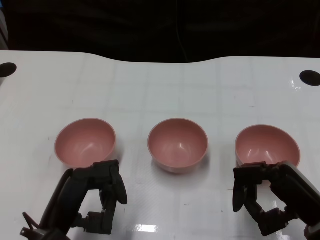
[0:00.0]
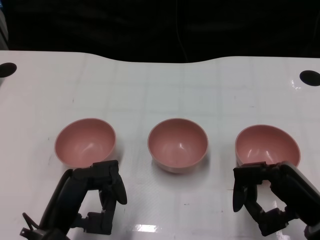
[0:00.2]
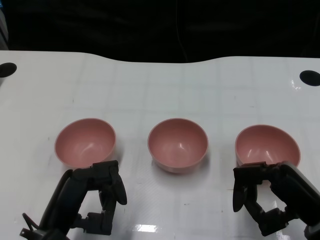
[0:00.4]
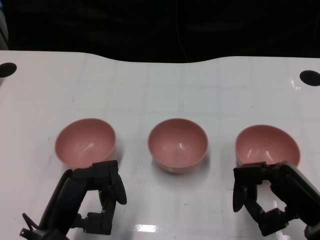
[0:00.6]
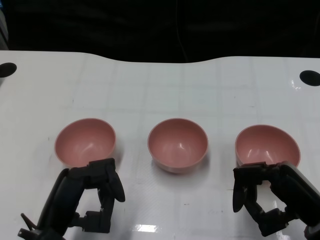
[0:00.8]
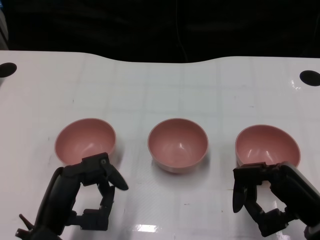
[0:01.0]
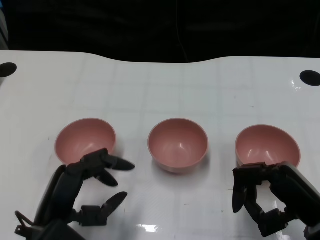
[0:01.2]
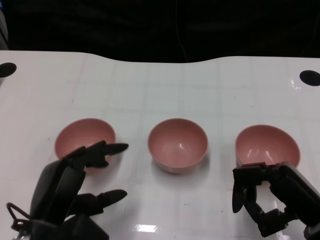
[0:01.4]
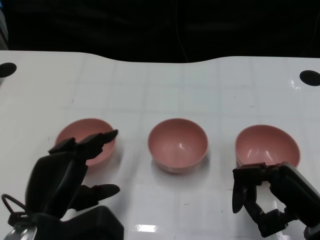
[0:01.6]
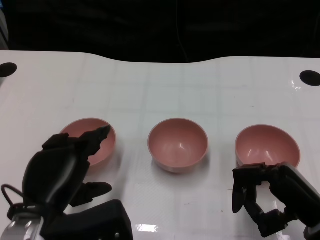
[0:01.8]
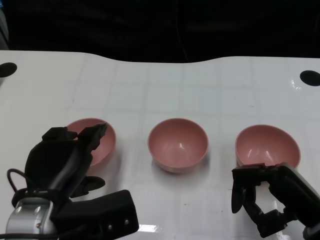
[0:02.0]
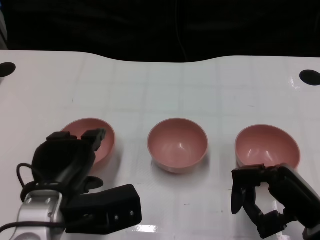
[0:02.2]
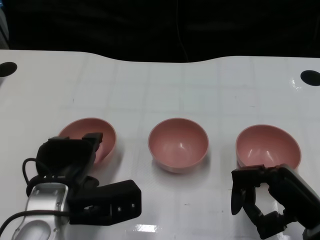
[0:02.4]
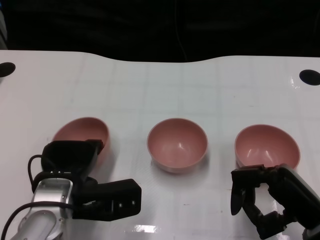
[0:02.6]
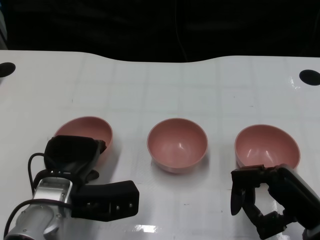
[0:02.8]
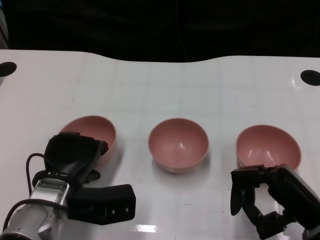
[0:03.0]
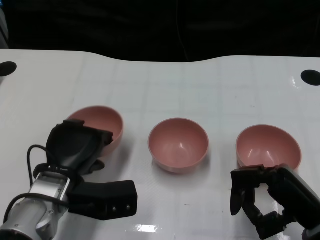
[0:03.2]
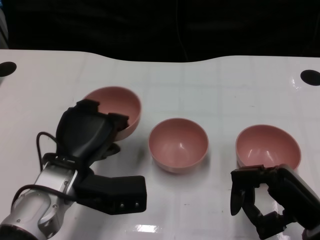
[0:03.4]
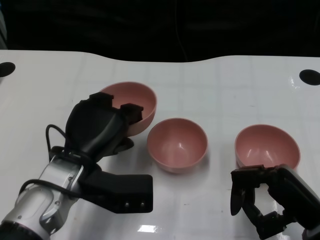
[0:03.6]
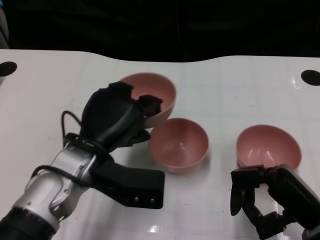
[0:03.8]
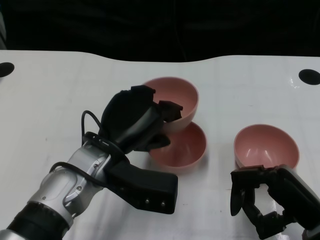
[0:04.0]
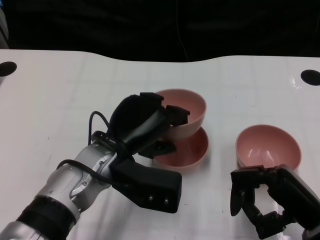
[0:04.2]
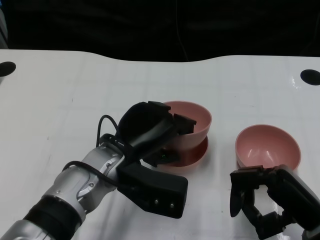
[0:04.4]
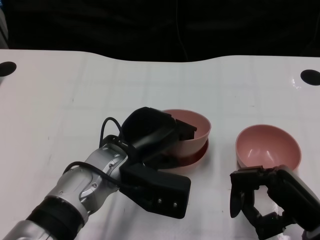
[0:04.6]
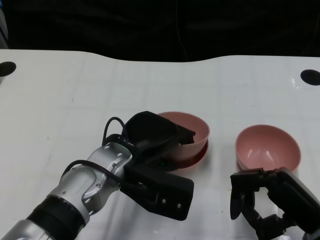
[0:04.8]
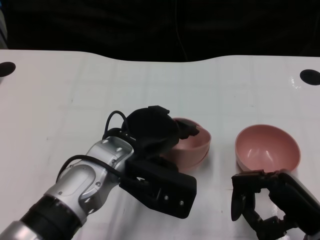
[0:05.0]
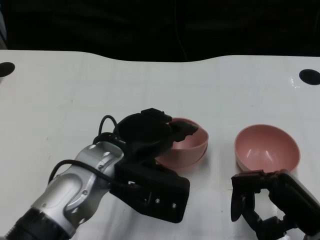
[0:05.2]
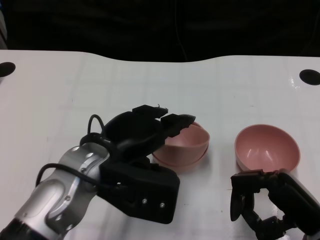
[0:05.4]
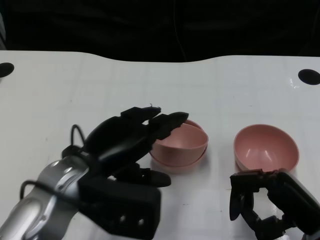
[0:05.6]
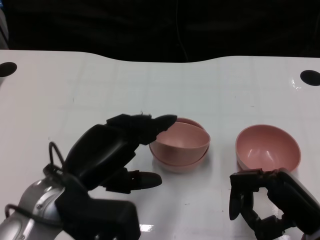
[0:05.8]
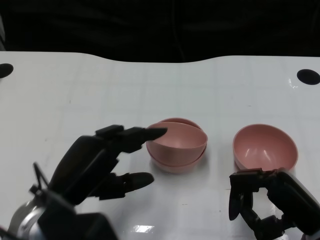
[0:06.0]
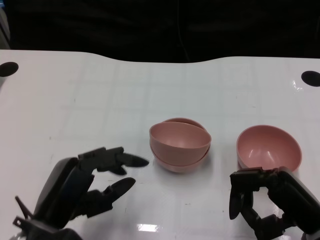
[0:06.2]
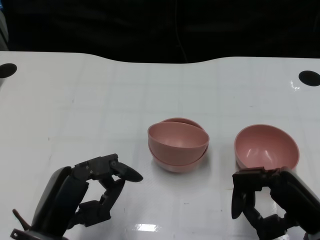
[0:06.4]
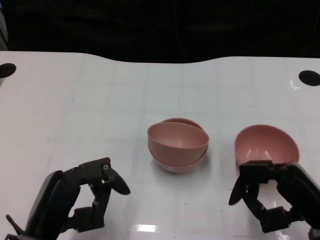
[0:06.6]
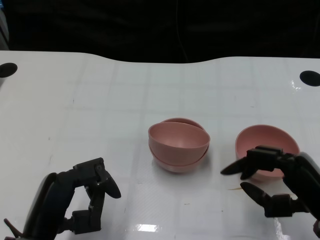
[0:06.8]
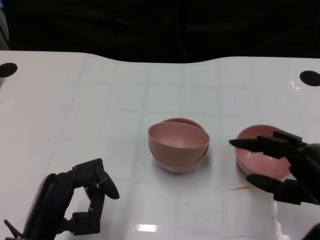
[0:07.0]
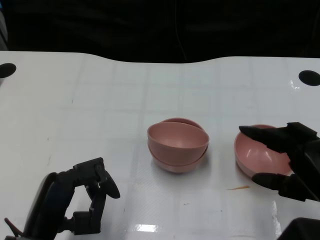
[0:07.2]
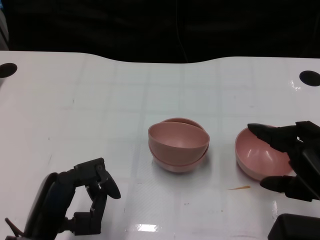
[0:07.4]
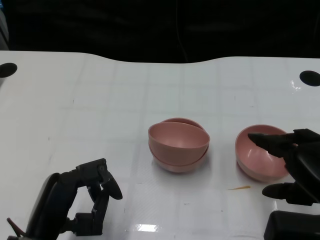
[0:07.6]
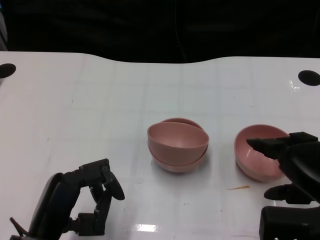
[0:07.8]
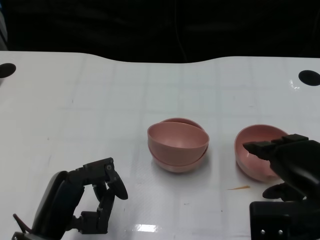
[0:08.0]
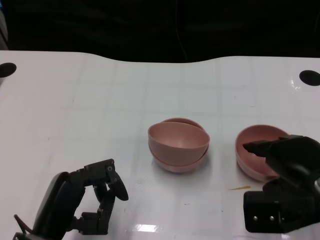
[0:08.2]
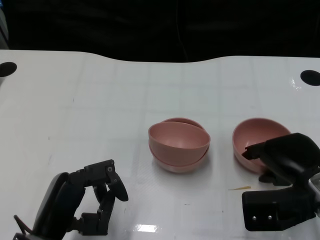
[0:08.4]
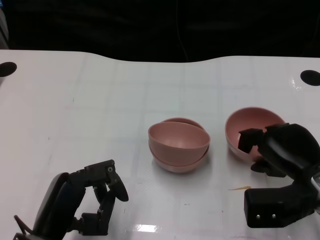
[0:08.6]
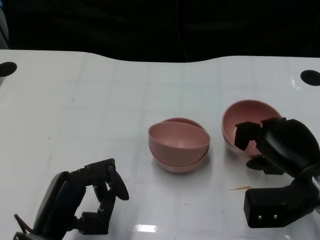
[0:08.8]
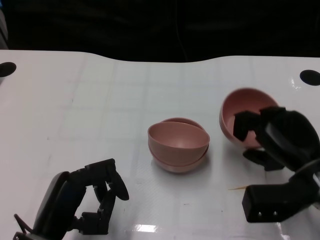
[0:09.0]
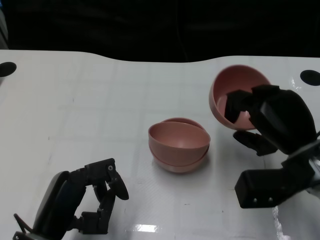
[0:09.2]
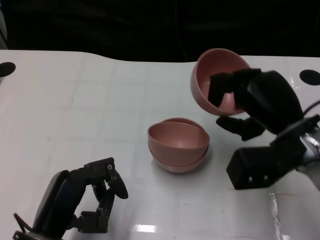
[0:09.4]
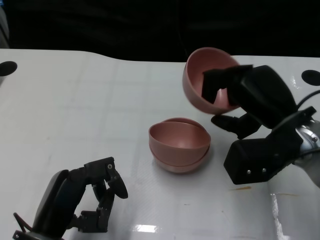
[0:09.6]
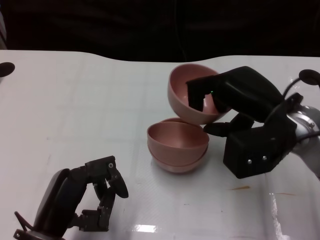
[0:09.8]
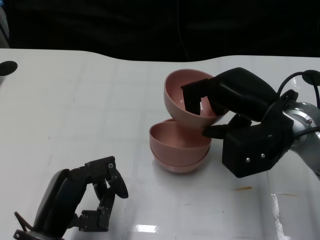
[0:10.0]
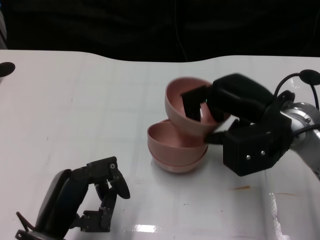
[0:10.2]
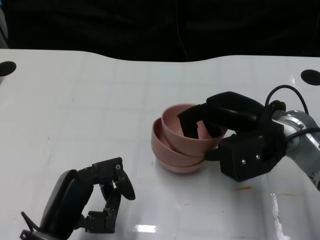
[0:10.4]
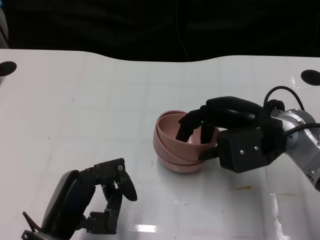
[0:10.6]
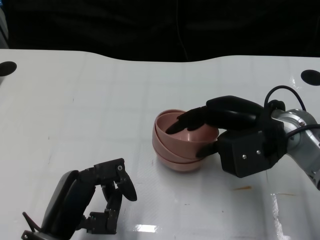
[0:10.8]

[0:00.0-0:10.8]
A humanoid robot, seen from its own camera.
Task of the whole recording: Pick up the bowl on one side of the table and place it on top of the middle bowl, then pick up the bowl on the other side of the table and place it on top of the middle bowls.
Step, 0:01.0 to 0:03.0: Grasp the bowl on the left with the left gripper.
Step, 0:03.2 to 0:05.6: Place the bowl on the left onto the bowl in the middle with left gripper.
Step, 0:05.8 to 0:08.6: Grasp the bowl on the right with the right gripper.
0:01.6 to 0:03.0: The left hand shifts some 10 cm forward.
0:03.0 to 0:04.6: The left hand travels to the right and upward by roughly 10 cm.
0:04.6 to 0:06.2: The left hand travels to the left and backward by about 15 cm.
0:06.2 to 0:07.8: The right hand travels upward by about 5 cm.
0:07.8 to 0:09.2: The right hand heads forward, covering some 10 cm.
0:09.2 to 0:10.8: The right hand moves about 5 cm.

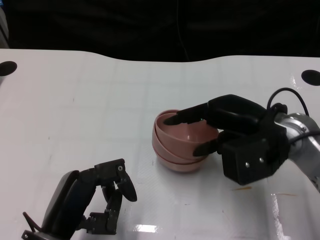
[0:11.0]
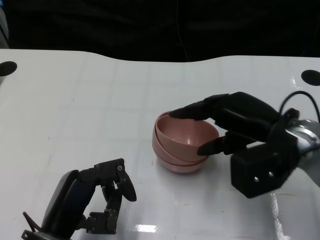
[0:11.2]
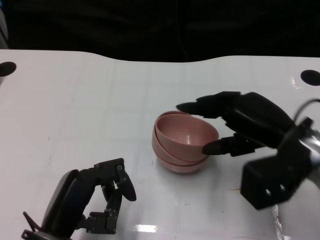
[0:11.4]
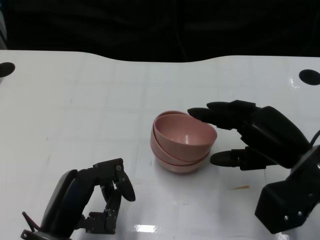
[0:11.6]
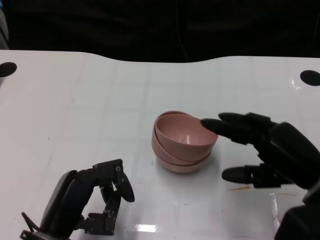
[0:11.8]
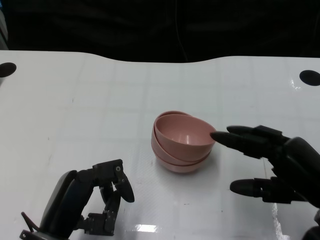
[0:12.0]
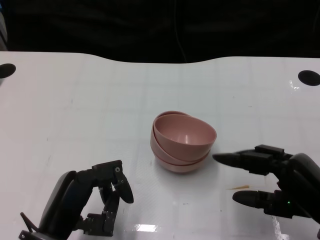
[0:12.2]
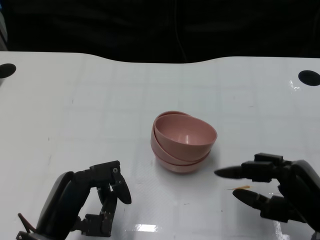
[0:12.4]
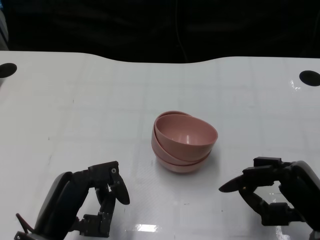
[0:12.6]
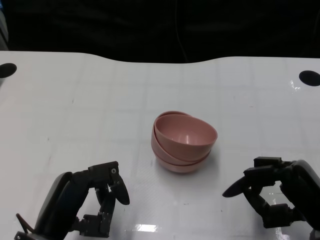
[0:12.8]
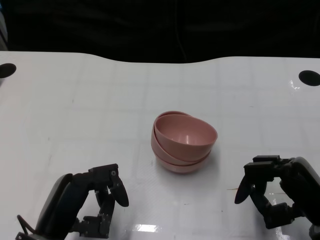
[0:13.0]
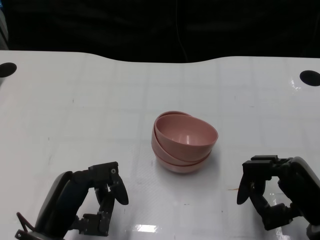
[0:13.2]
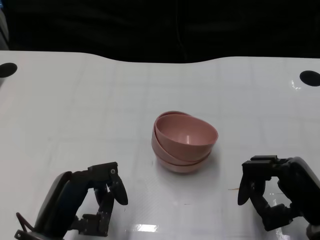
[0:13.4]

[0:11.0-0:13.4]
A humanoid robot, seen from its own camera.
Task of the whole recording: Pick up the bowl on one side of the table and place it on top of the middle bowl, then pick up the bowl on the other side of the table and place it on top of the middle bowls.
0:11.0 to 0:12.2: The right hand is displaced backward and to the right by approximately 15 cm.
0:12.2 to 0:13.4: The hands stay close to where they were, moving slightly.

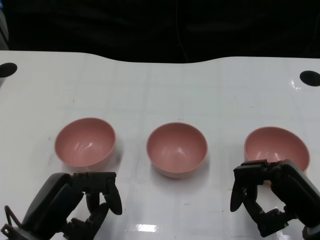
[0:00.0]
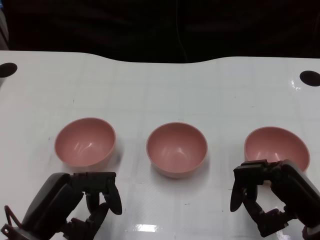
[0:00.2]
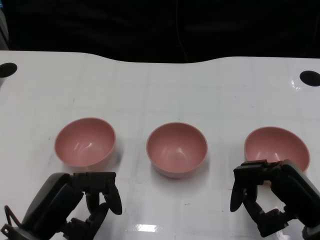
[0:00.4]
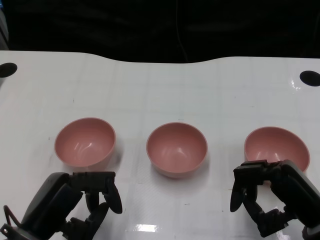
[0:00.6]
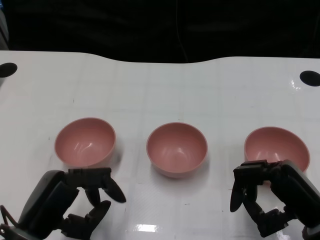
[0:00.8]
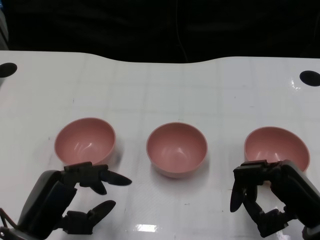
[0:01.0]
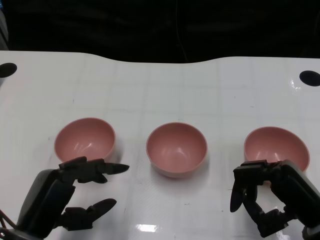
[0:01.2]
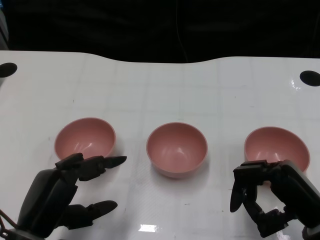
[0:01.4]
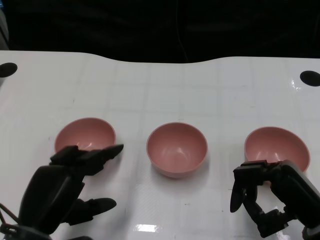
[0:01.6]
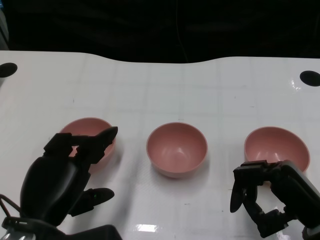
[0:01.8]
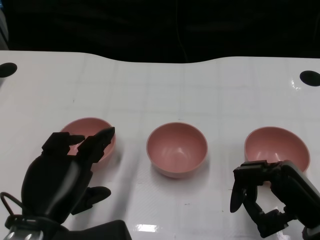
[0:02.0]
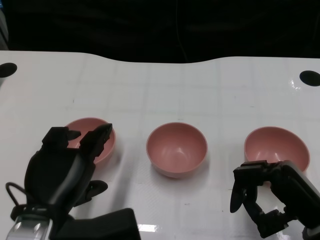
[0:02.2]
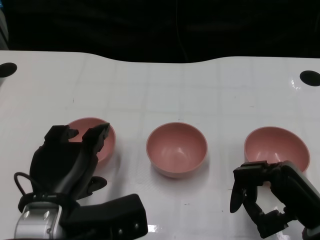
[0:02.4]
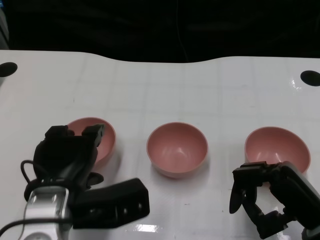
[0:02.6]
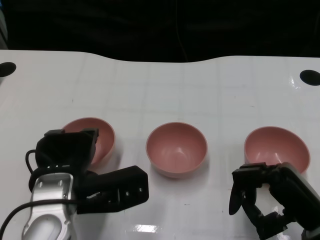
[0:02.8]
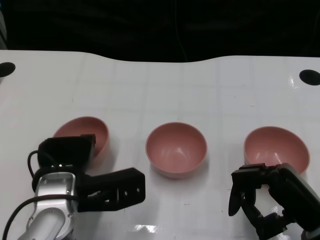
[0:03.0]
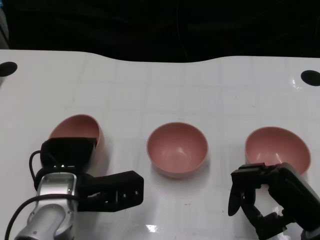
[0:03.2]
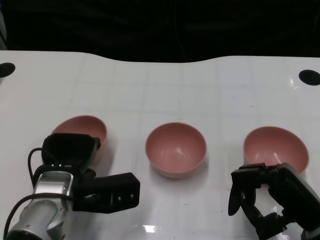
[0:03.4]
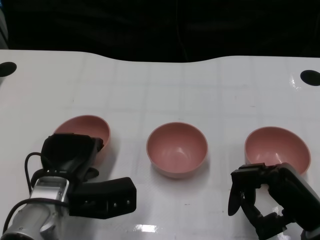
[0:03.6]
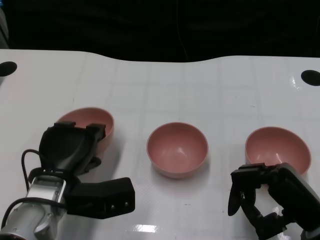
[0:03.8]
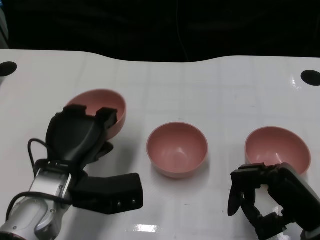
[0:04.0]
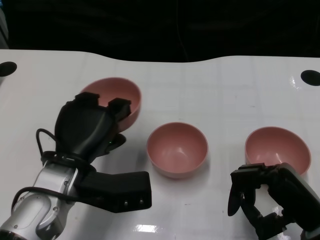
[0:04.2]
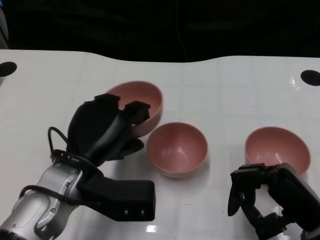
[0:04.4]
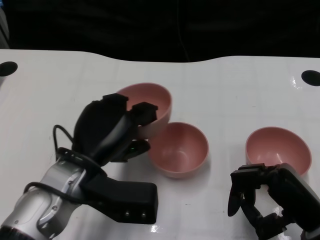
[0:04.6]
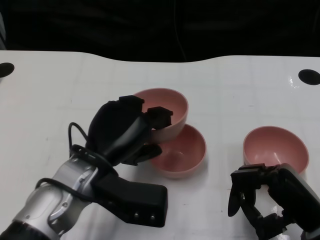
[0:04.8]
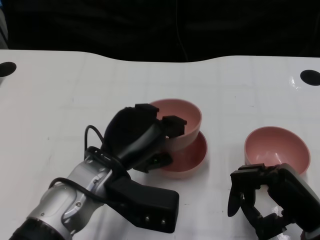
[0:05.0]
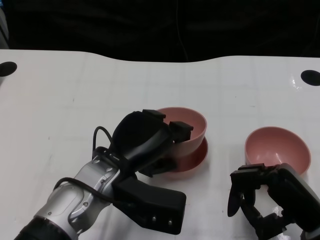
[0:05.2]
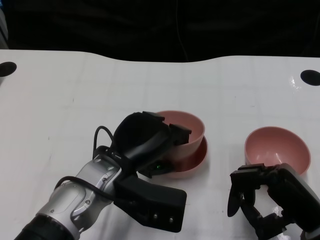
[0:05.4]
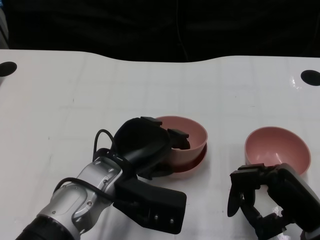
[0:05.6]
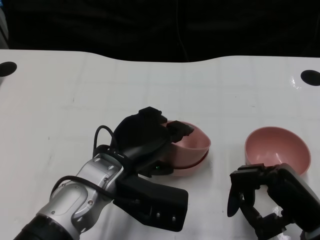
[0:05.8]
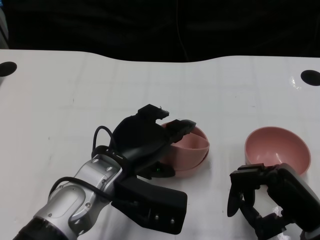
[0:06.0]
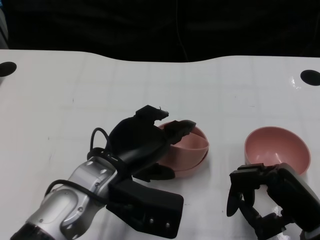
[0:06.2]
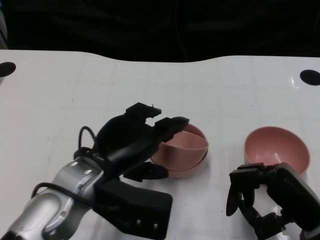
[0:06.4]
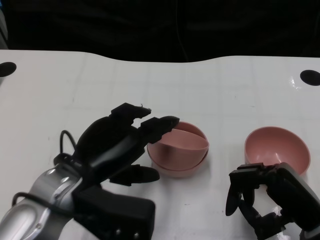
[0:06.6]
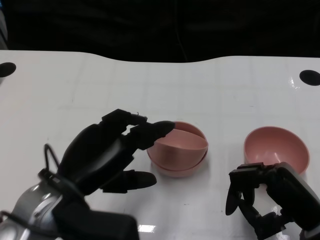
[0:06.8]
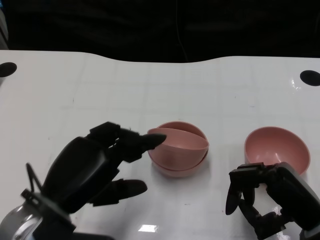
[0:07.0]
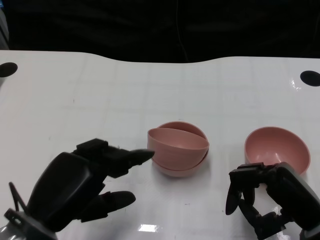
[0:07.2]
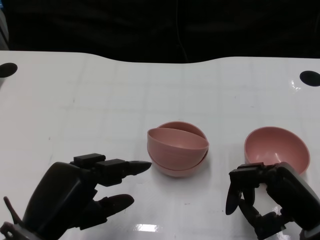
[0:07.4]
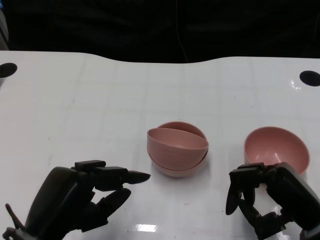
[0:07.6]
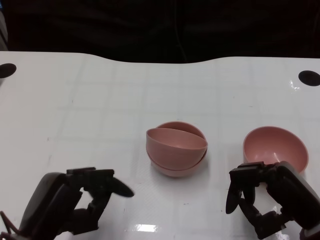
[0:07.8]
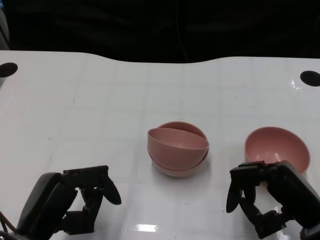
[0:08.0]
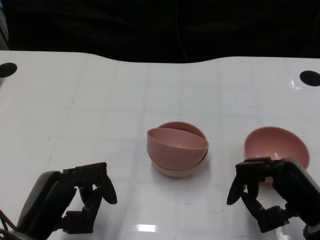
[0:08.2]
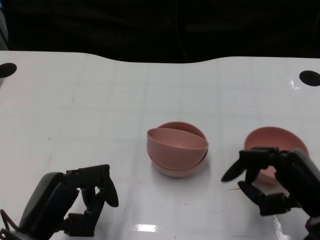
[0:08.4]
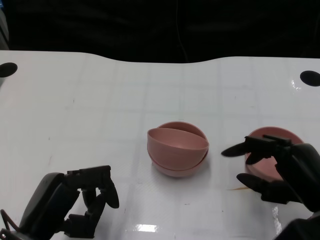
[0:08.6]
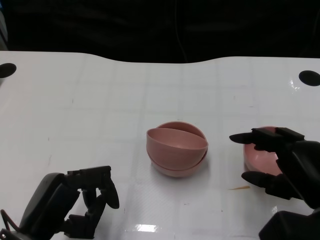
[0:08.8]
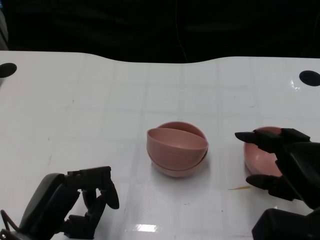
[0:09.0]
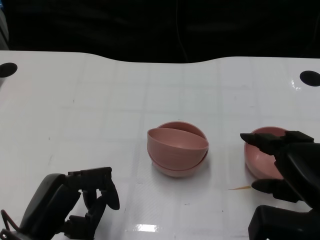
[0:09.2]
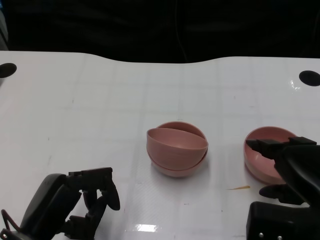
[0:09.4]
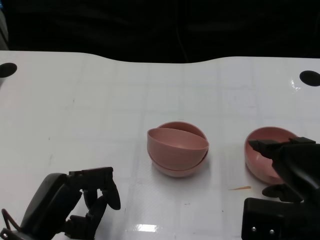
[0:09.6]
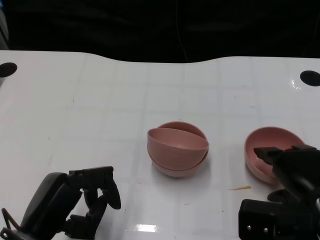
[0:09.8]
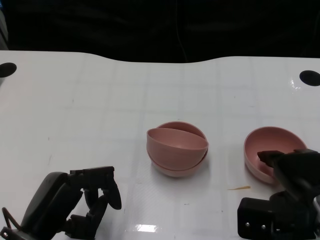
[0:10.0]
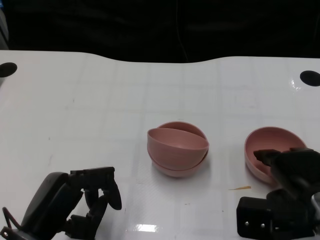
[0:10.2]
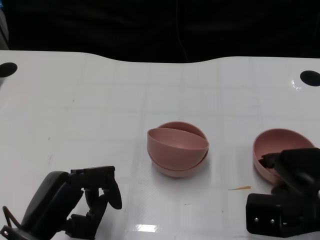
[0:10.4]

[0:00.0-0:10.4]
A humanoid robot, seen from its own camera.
Task of the whole recording: Pick up the bowl on one side of the table and place it on top of the middle bowl, then pick up the bowl on the other side of the table and place it on top of the middle bowls.
Step, 0:00.8 to 0:03.6: Grasp the bowl on the left with the left gripper.
Step, 0:03.8 to 0:06.6: Place the bowl on the left onto the bowl in the middle with left gripper.
0:01.4 to 0:03.0: The left hand is displaced forward by some 10 cm.
0:06.0 to 0:07.4: The left hand goes some 15 cm to the left and backward.
